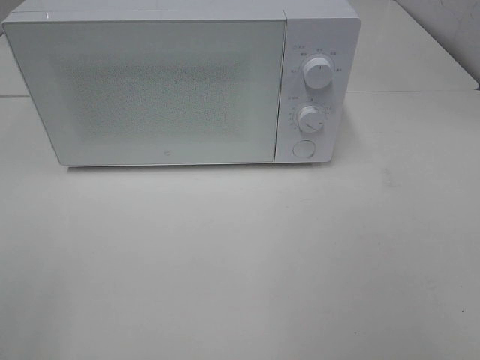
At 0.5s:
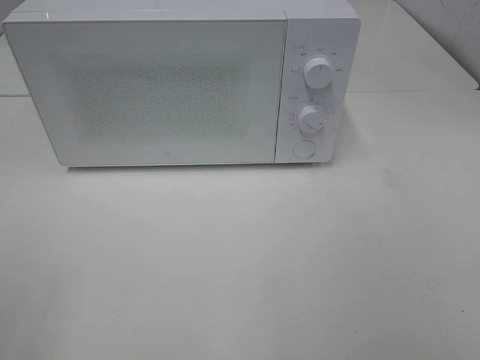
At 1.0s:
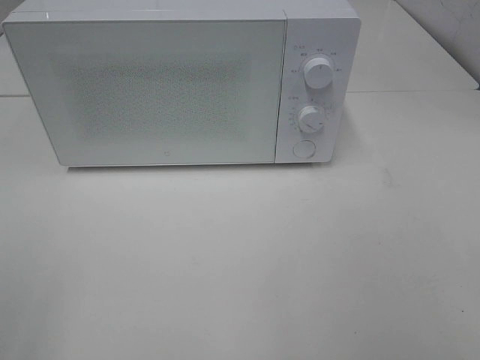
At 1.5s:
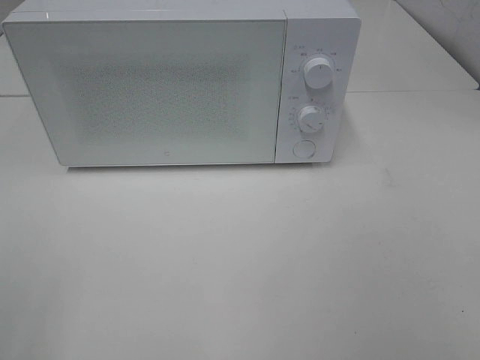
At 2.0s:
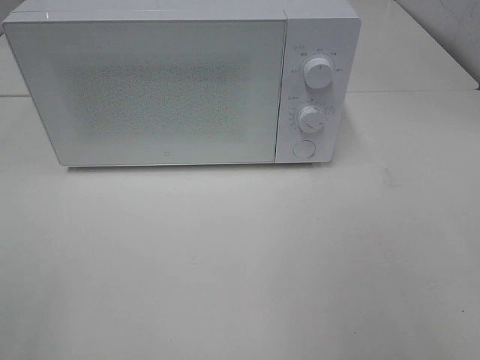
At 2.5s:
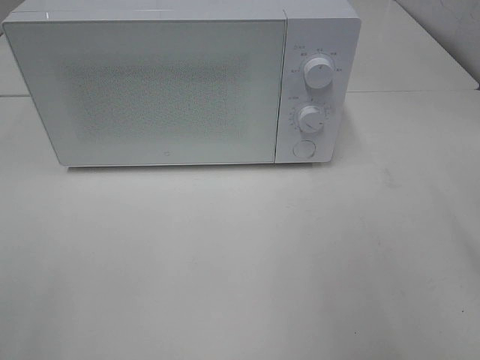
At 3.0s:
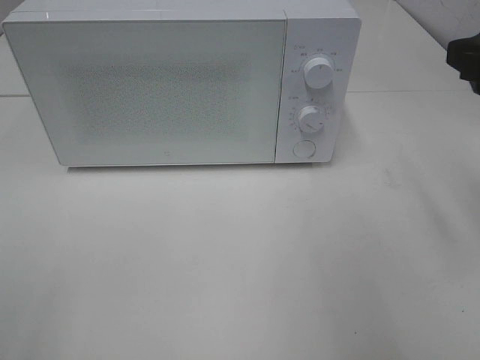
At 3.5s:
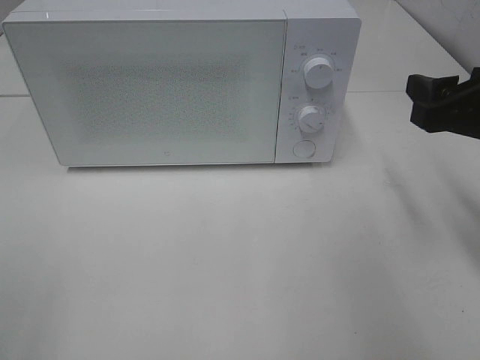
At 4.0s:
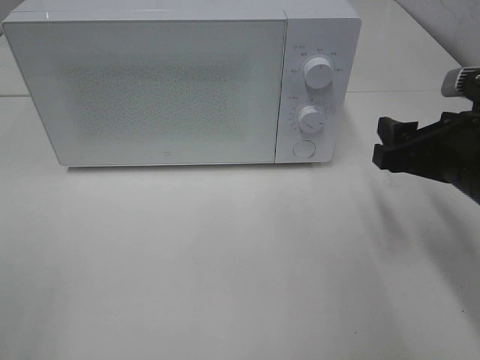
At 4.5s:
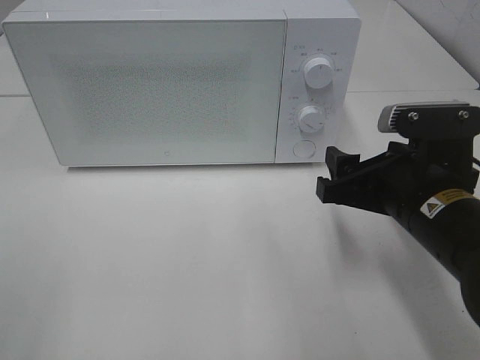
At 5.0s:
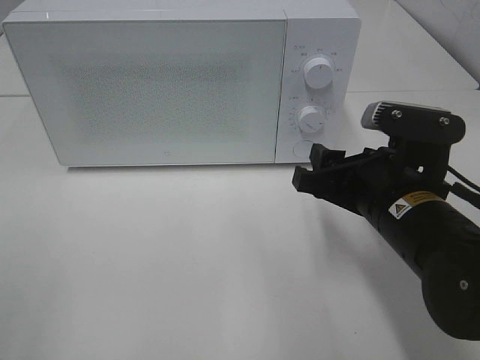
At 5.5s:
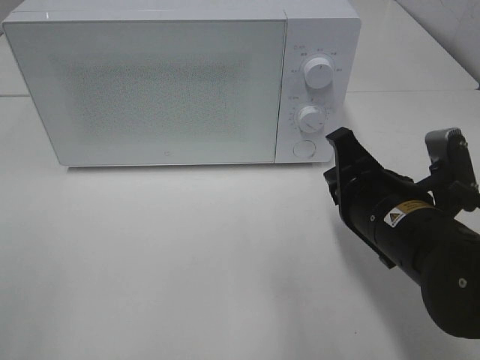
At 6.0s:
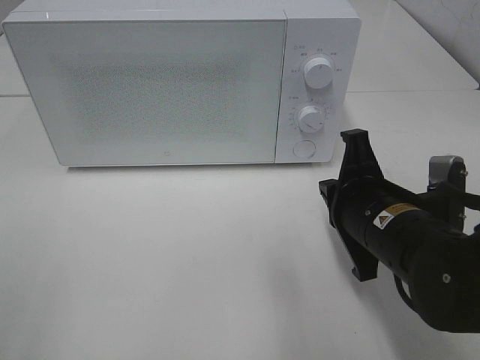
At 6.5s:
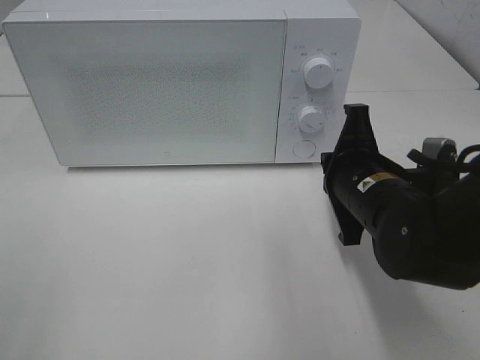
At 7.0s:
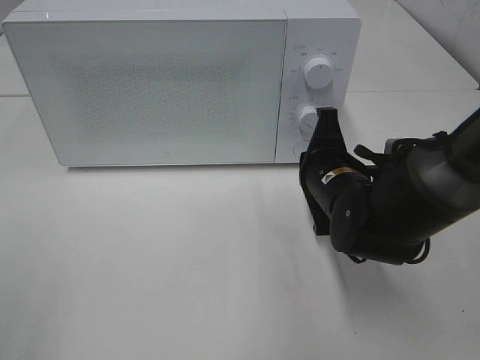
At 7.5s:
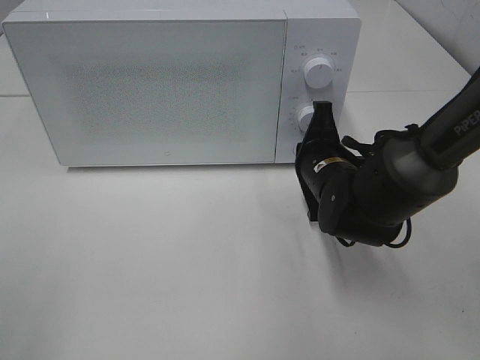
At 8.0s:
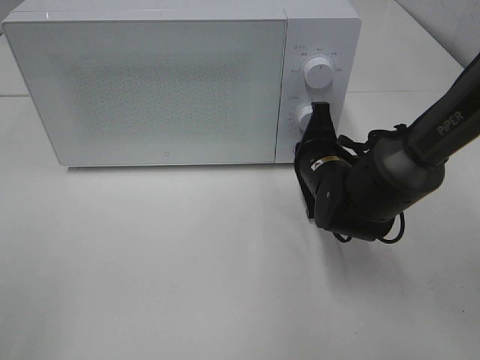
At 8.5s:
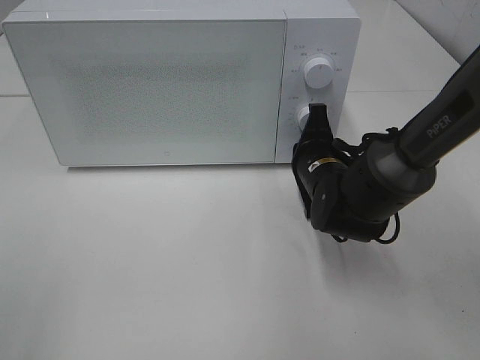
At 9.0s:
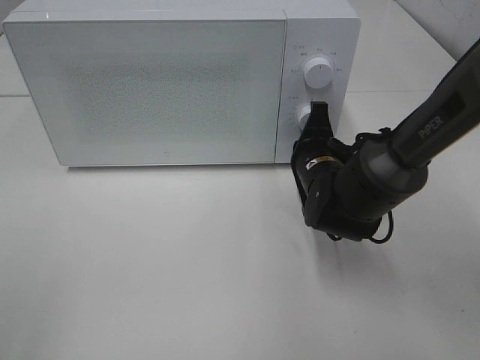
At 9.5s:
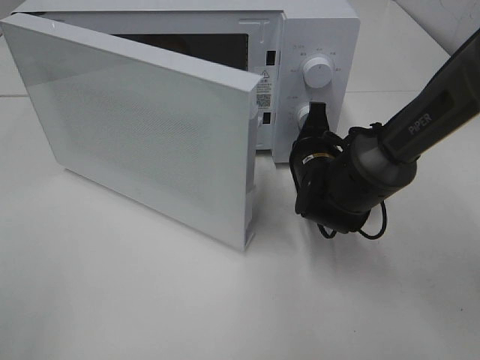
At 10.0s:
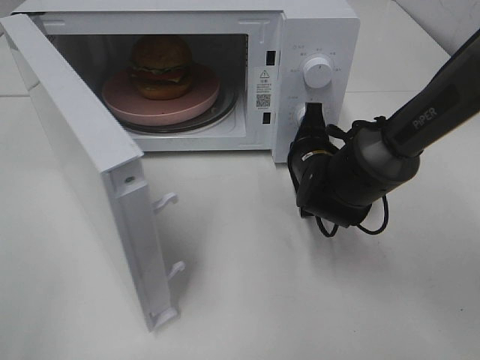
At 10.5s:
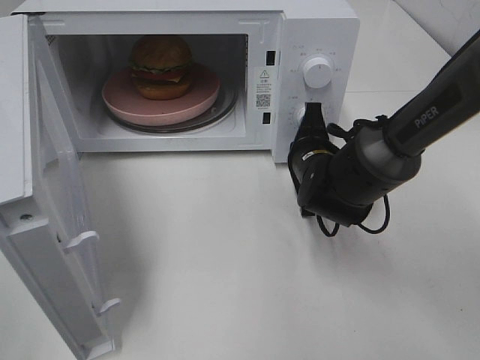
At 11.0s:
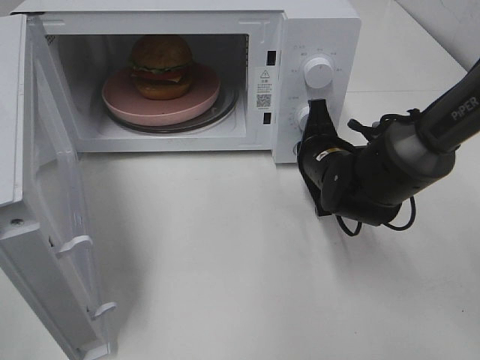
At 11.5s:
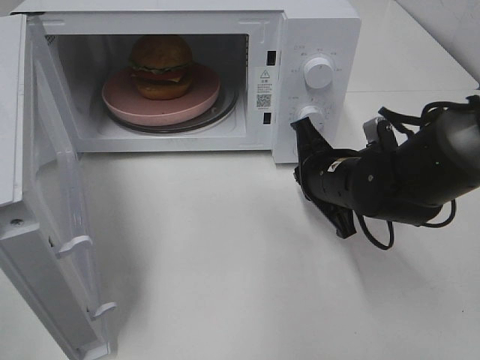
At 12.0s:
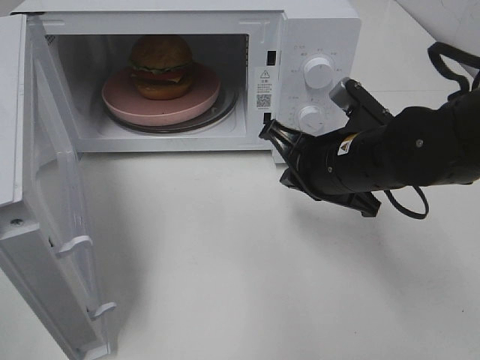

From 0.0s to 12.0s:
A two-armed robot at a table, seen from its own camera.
Task of the whole recording: Heat the burger.
Step, from 0.0s to 11.0s: Right hand: press the switch.
From 2.0s to 4.0s: The right gripper shifts roughly 20 cm forward and downward.
From 4.0s to 6.0s: The right gripper goes roughly 10 cm to the left, and closes up.
From 6.0s to 8.0s: The right gripper shifts roughly 15 cm forward and downward.
From 10.0s to 12.0s: The right gripper is displaced backward and upward by roughly 10 cm.

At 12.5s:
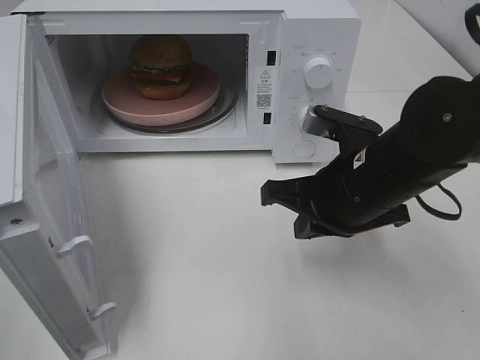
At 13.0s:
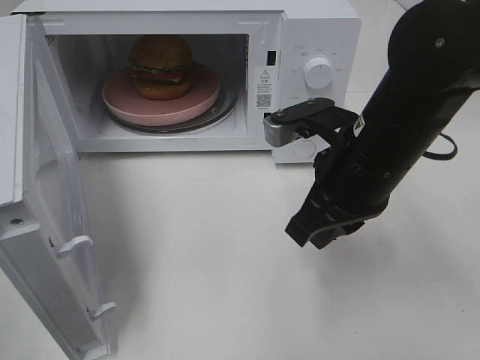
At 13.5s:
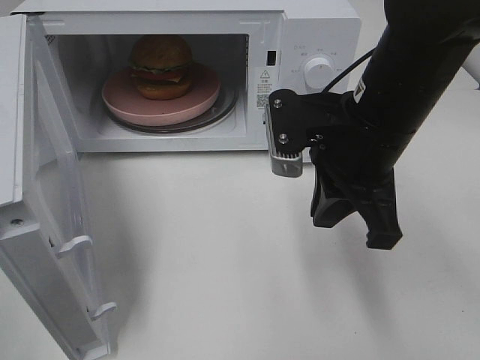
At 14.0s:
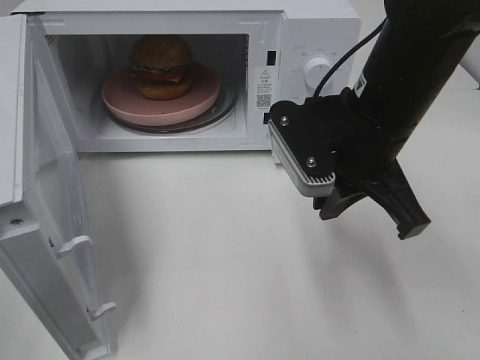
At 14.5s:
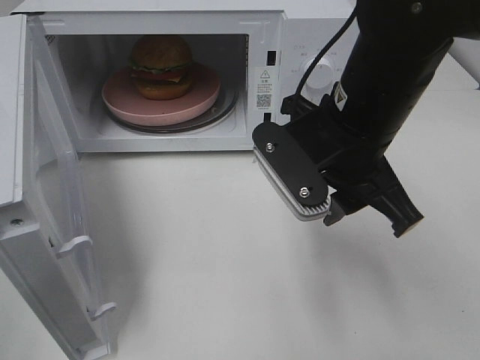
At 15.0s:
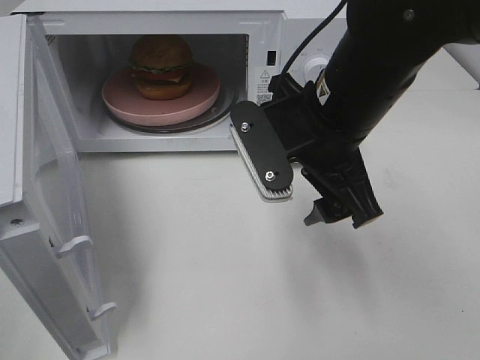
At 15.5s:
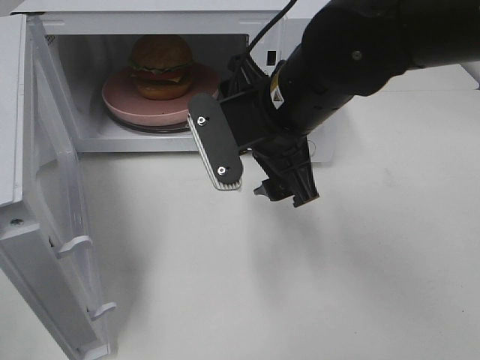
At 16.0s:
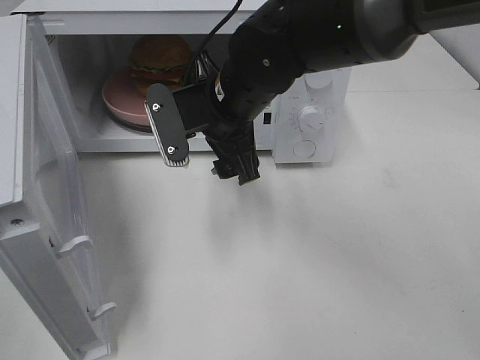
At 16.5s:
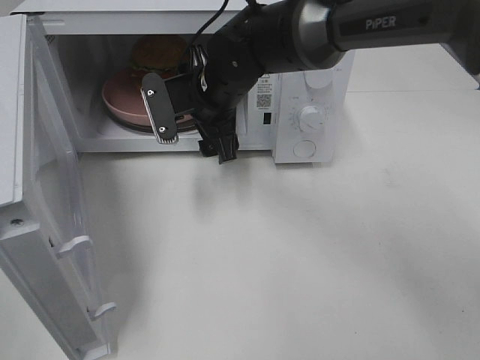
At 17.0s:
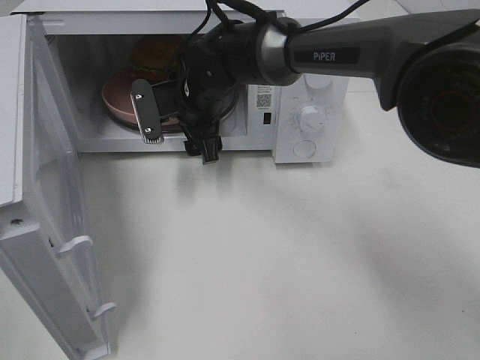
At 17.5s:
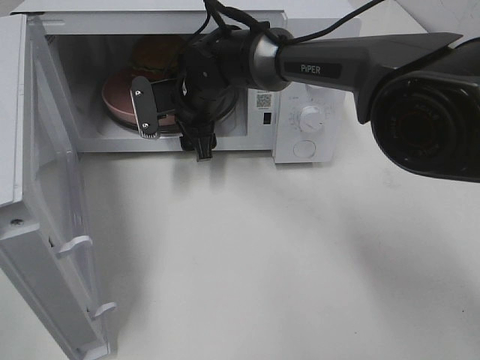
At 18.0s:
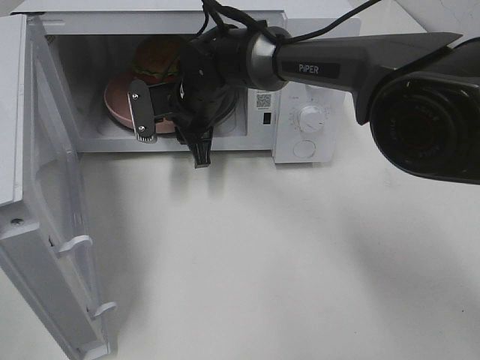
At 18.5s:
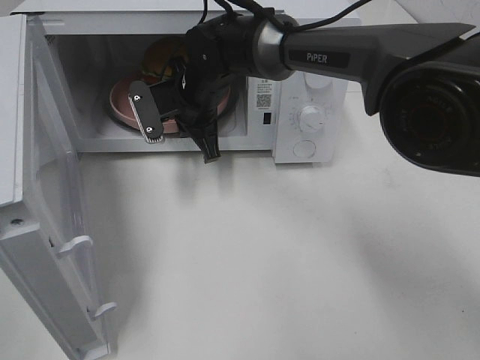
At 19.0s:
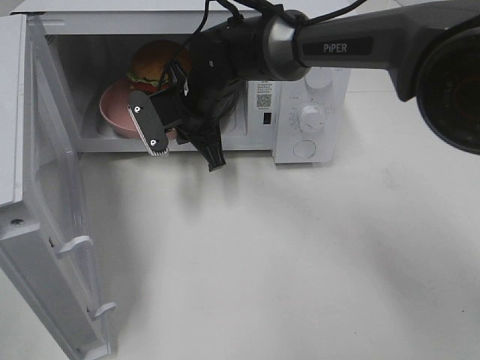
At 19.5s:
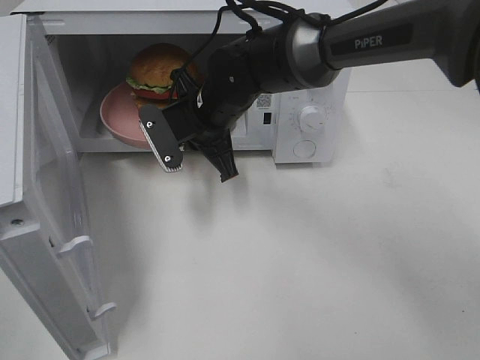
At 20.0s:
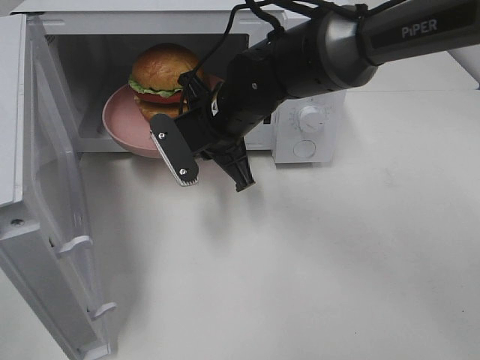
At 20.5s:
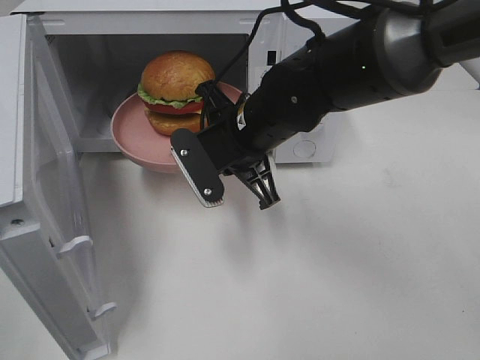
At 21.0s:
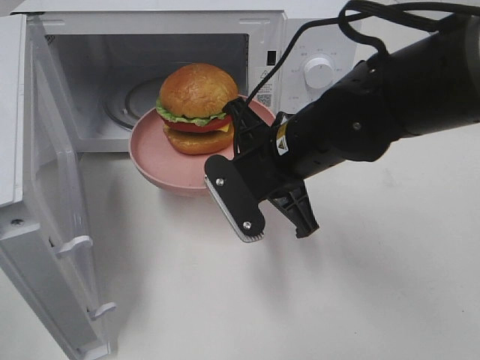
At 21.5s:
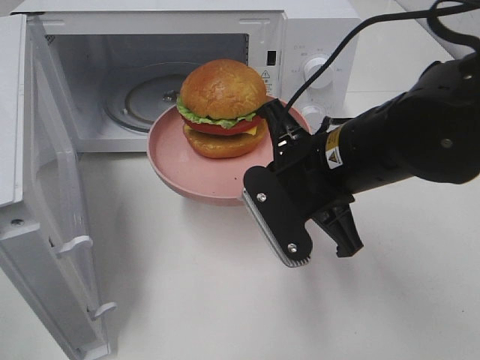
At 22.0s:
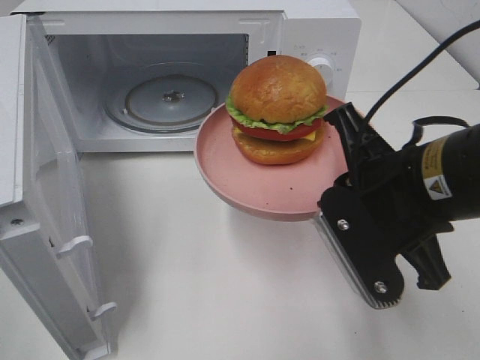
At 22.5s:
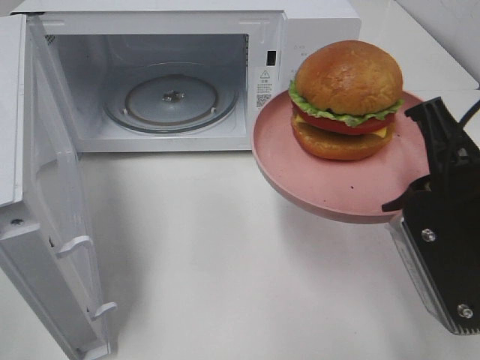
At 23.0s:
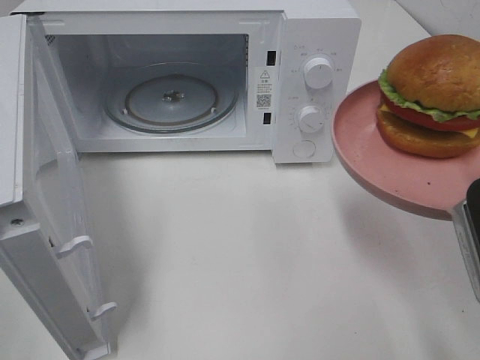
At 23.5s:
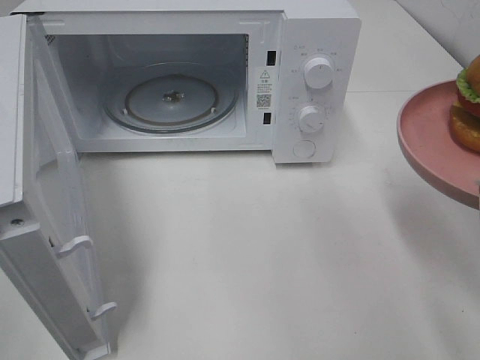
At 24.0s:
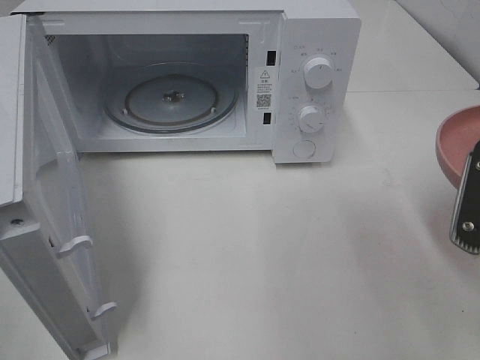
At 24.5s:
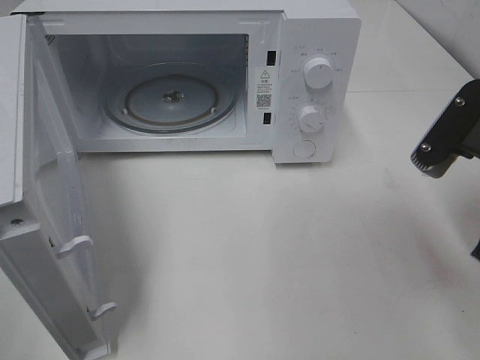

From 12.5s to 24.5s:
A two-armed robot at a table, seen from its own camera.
Task of the whole recording: Heat the burger.
Step, from 12.5s to 18.0s: Right hand: grab the plate with the hamburger.
From 12.5s to 14.5s: The right gripper shifts some 5 cm upward, and opens.
From 14.5s to 16.5s: The right gripper heads forward, to the left and downward, covering approximately 20 cm, and opens up.
From 16.5s to 18.5s: The right gripper ends up about 5 cm from where it was, and closes up.
From 18.5s to 20.5s: The right gripper shifts some 15 cm backward and to the right.
From 20.5s to 22.5s: The right gripper goes approximately 25 cm backward, to the right and upward.

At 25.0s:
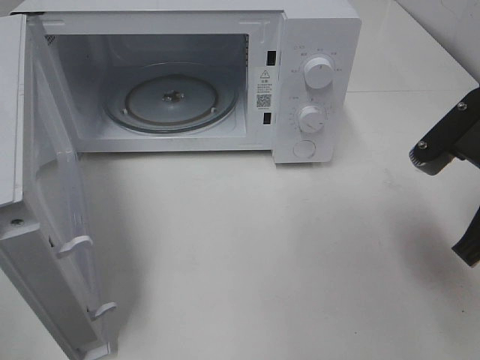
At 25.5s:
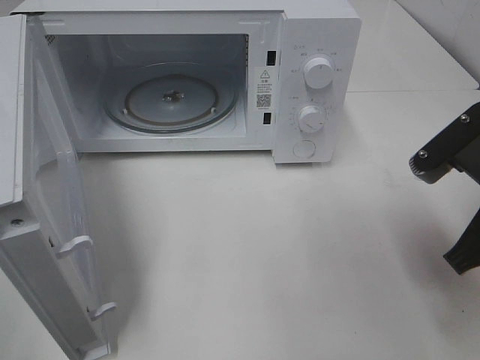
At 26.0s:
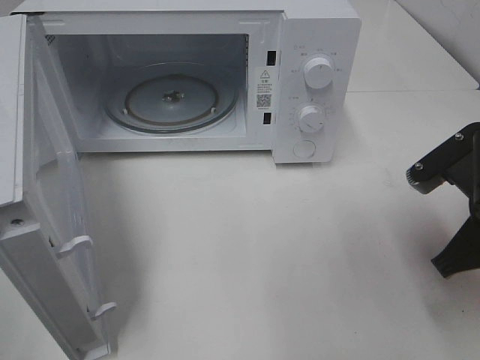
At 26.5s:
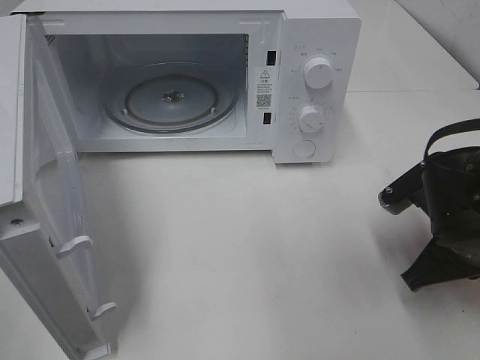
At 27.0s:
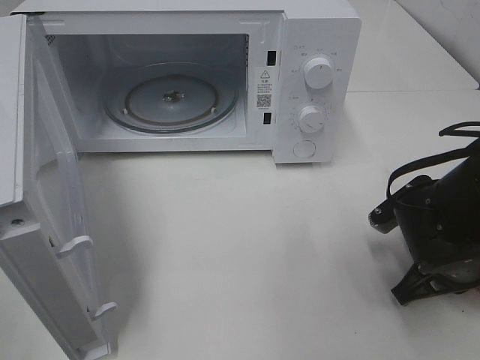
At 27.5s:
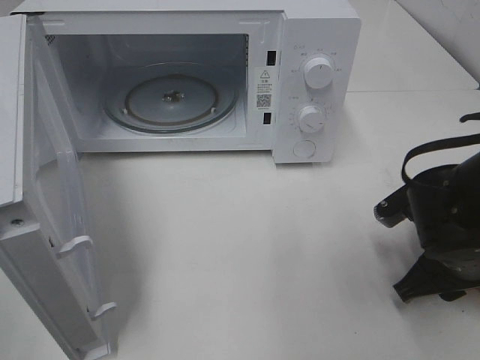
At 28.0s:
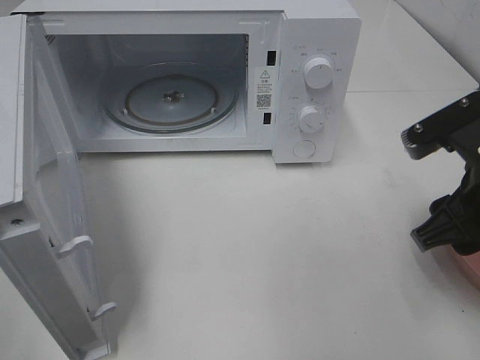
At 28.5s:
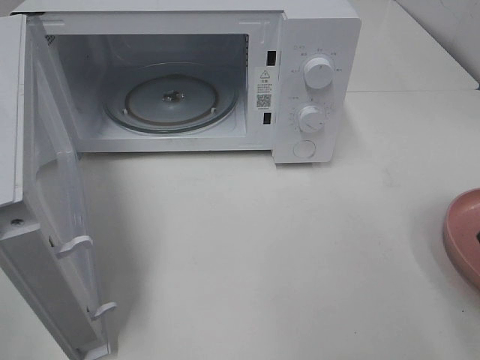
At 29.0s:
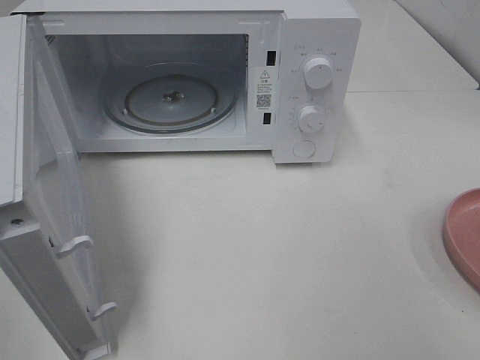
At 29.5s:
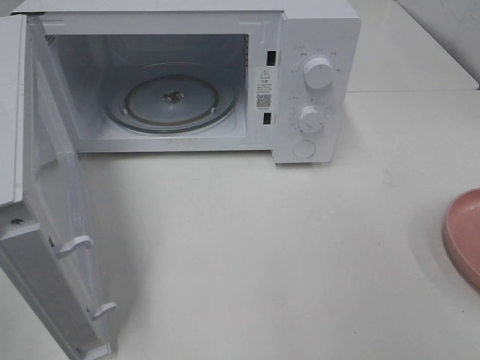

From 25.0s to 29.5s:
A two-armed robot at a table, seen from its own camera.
Task of the whole recording: Heat the burger.
Step, from 25.0s to 27.0s: Right hand: place the plate on the table.
From 25.0s to 27.0s: The right gripper is displaced downward by about 15 cm.
From 27.0s to 29.5s: The right gripper is displaced upward and backward by about 30 cm, and opens its fingers.
